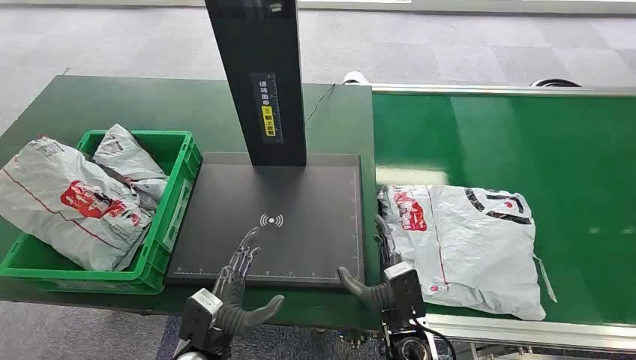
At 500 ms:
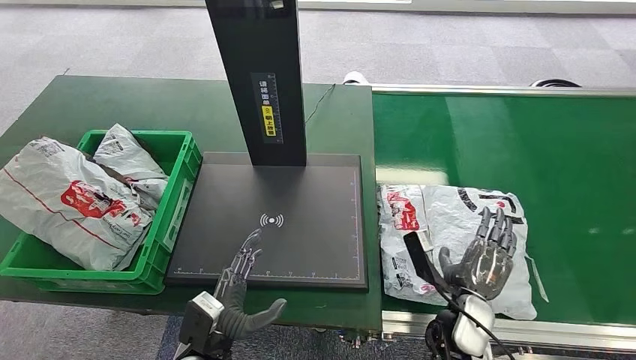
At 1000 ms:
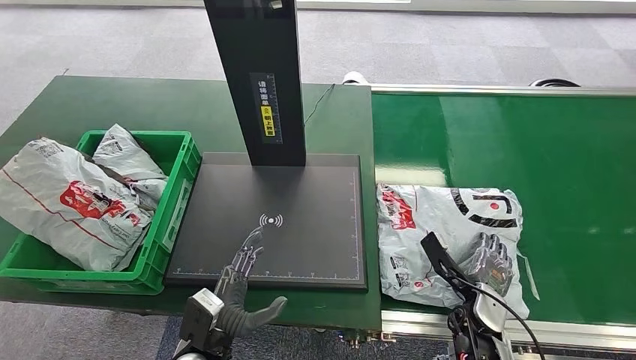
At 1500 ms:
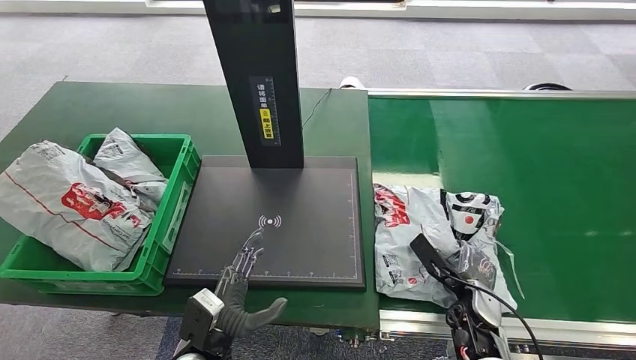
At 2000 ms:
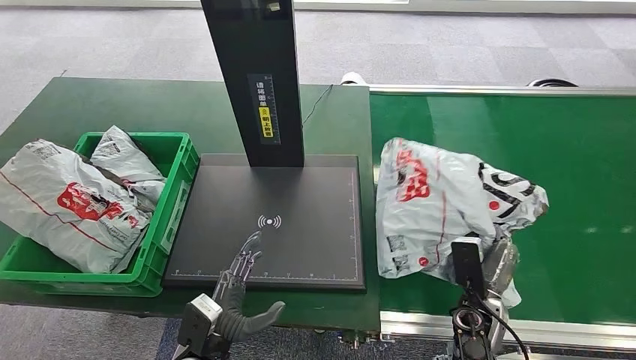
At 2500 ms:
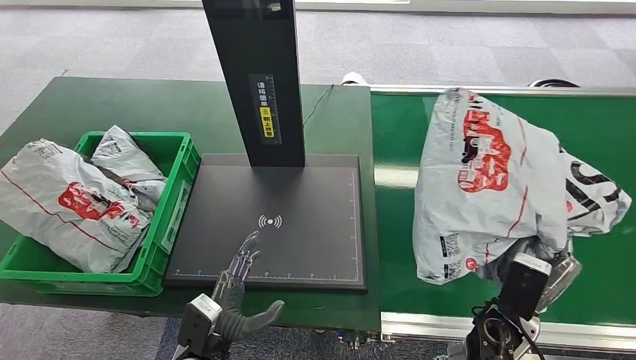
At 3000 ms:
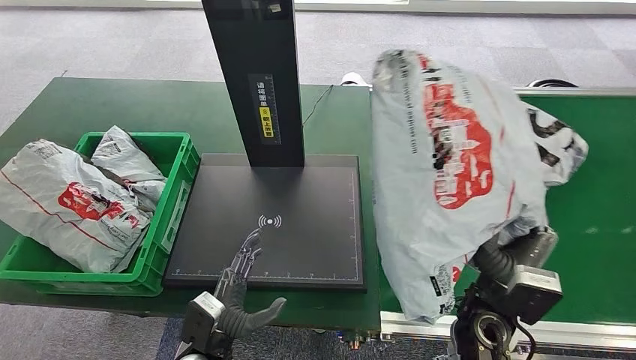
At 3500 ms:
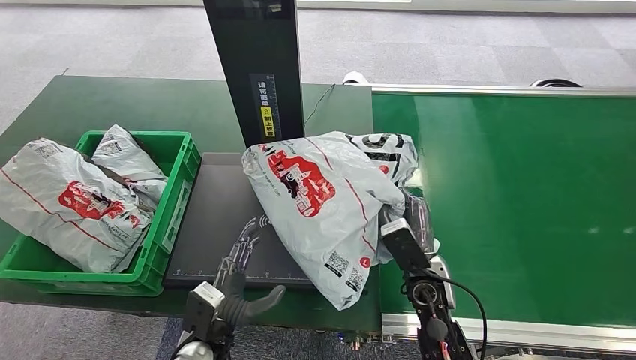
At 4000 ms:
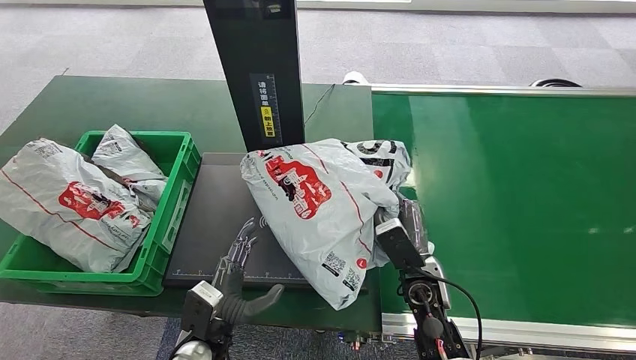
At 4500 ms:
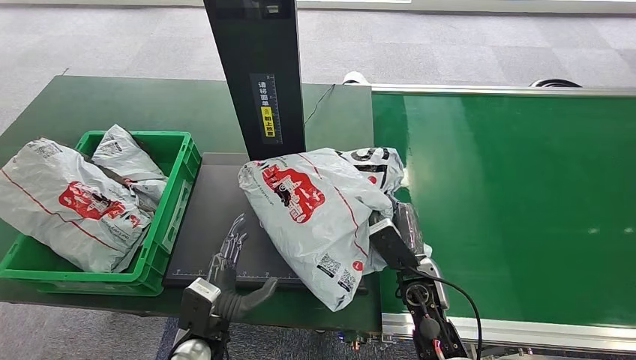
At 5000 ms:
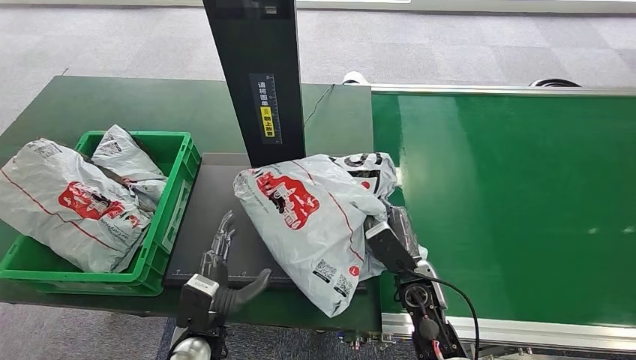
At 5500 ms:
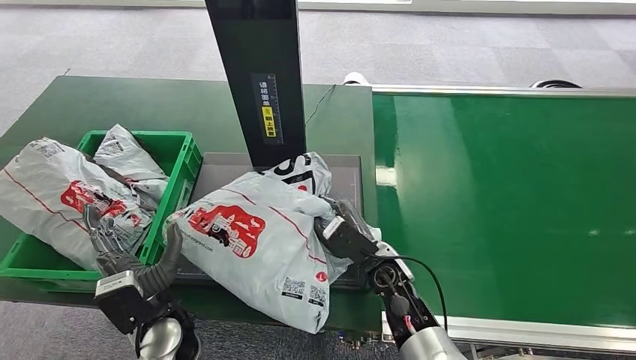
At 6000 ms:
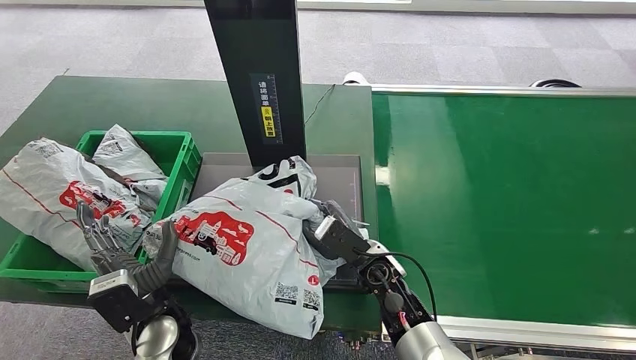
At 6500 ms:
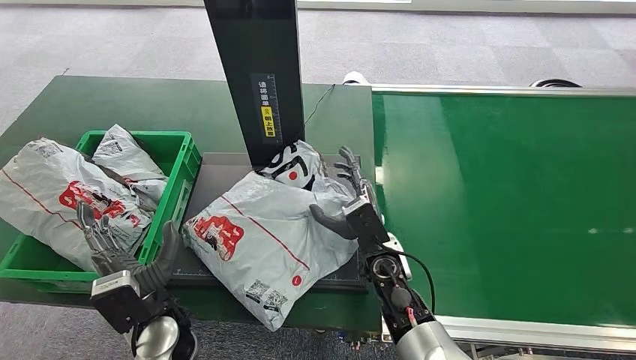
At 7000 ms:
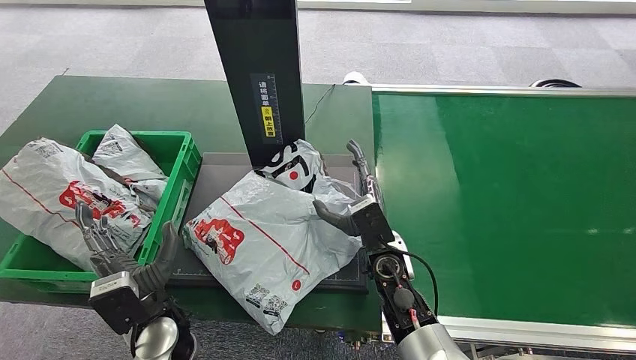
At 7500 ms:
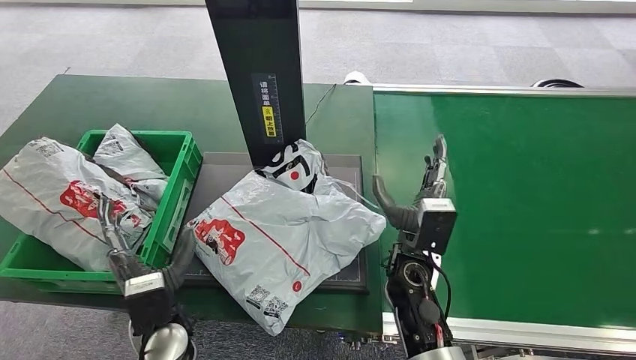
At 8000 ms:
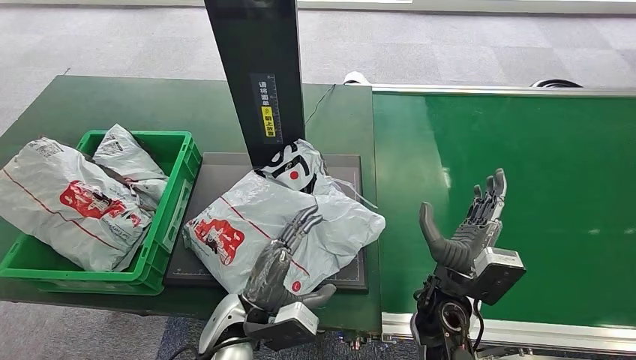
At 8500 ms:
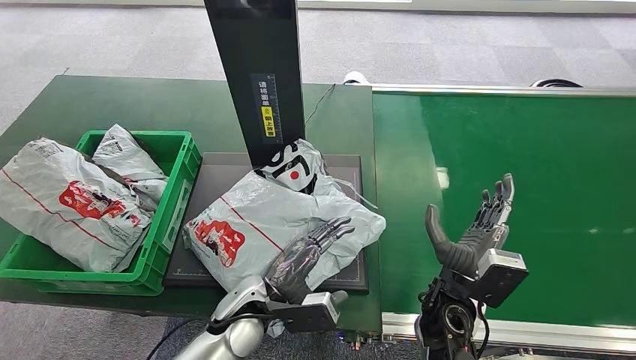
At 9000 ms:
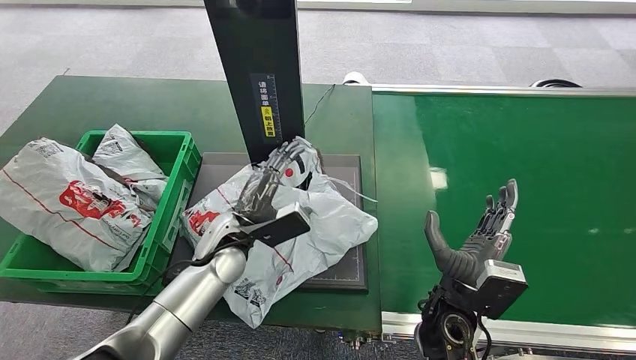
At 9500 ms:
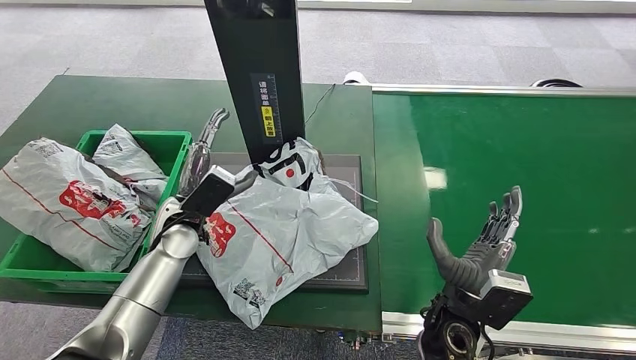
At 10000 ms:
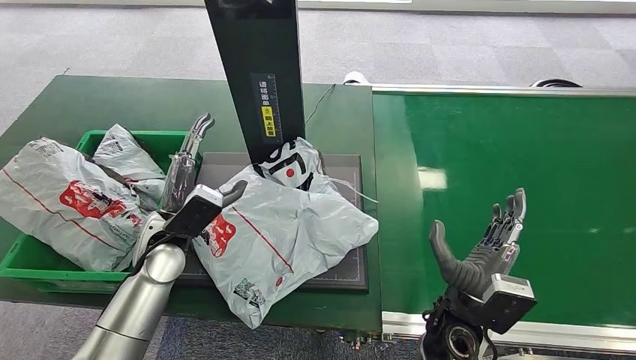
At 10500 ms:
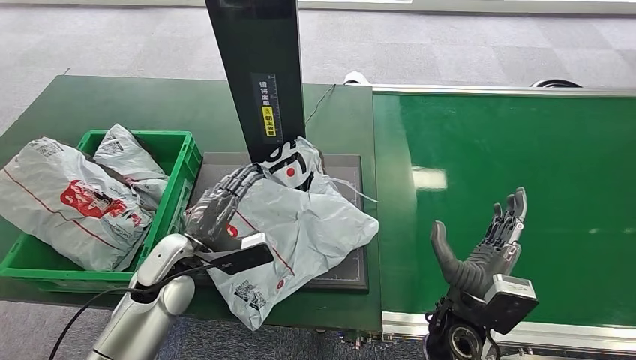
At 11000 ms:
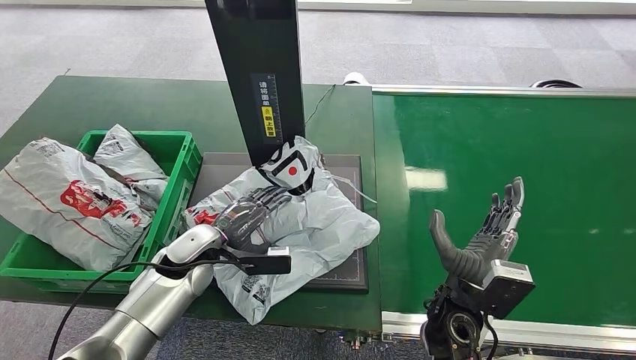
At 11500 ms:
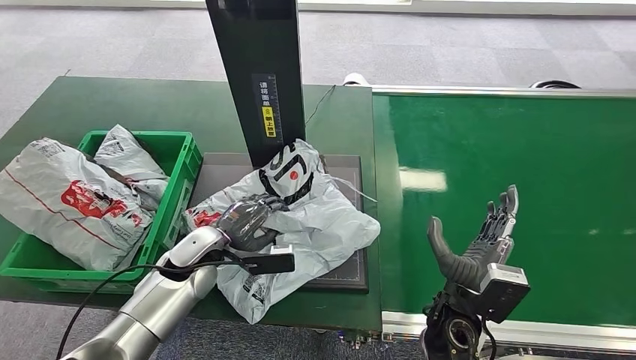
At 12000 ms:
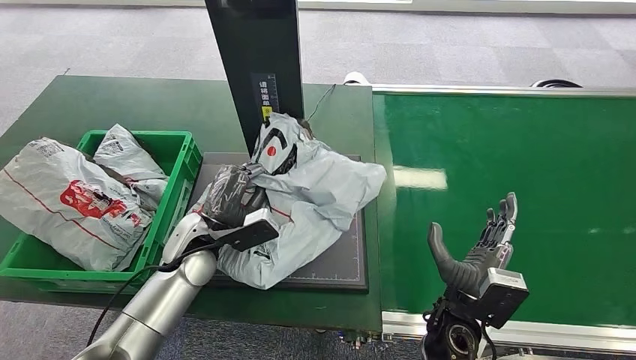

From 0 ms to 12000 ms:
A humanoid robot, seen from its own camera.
Step, from 0 ms to 2500 ms: Pick up the package from the conveyor belt.
Step, from 3000 ms to 8000 ms: Place the package onto the inbound machine.
From 8000 ms to 10000 ms: The left hand moves to the left, forward and upward, about 20 cm.

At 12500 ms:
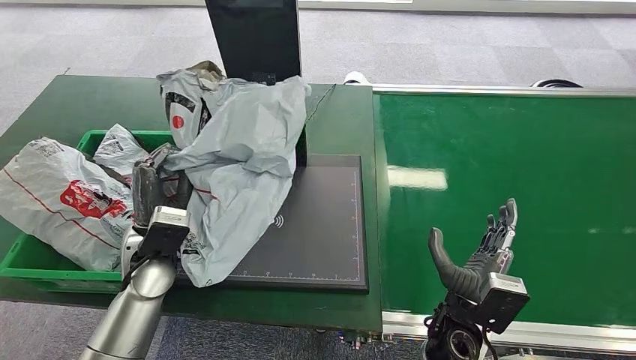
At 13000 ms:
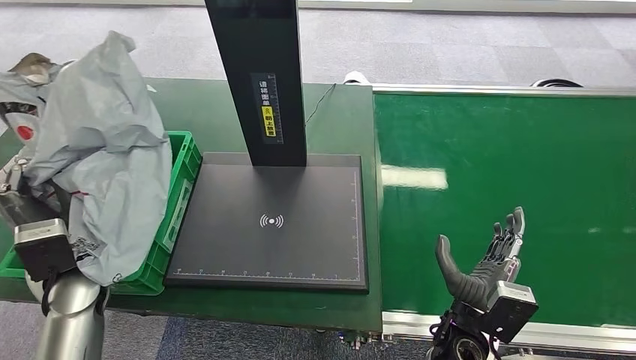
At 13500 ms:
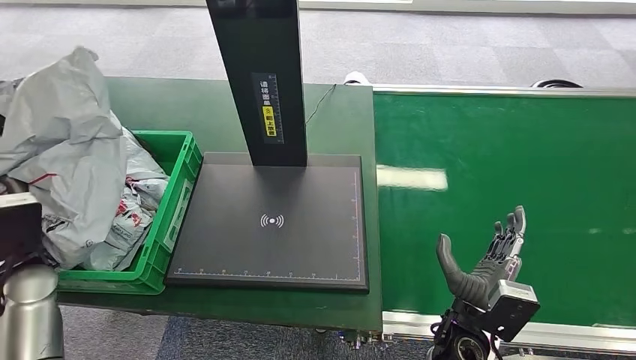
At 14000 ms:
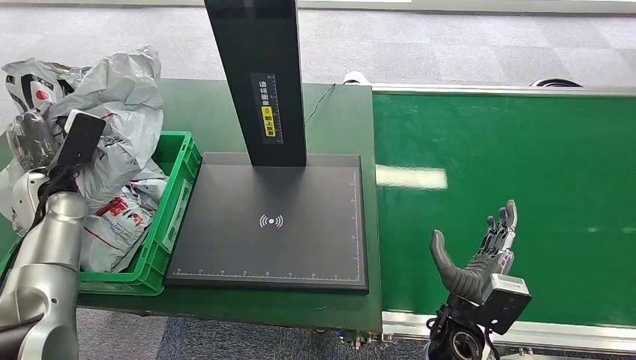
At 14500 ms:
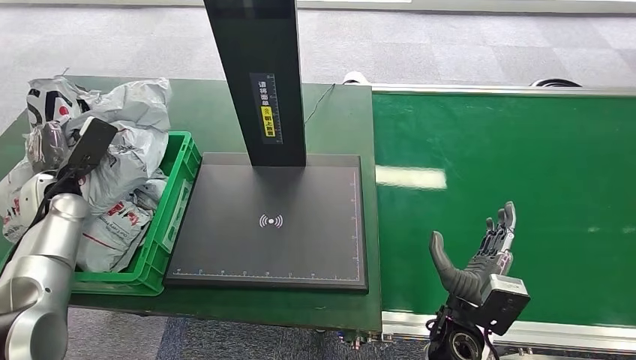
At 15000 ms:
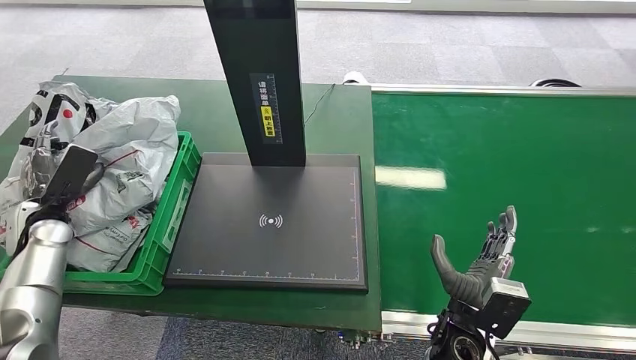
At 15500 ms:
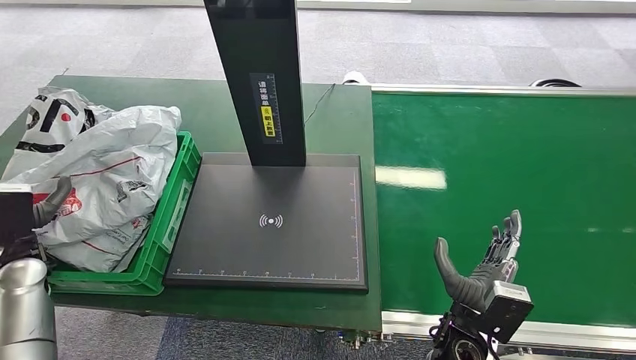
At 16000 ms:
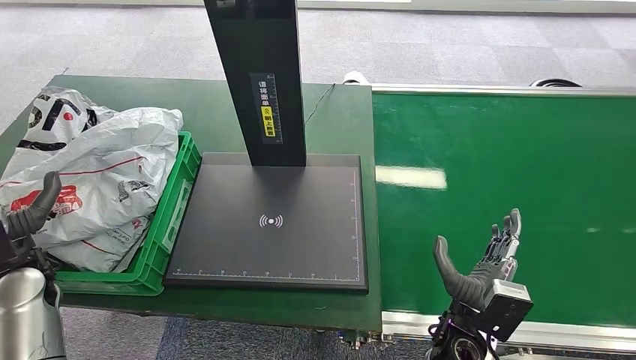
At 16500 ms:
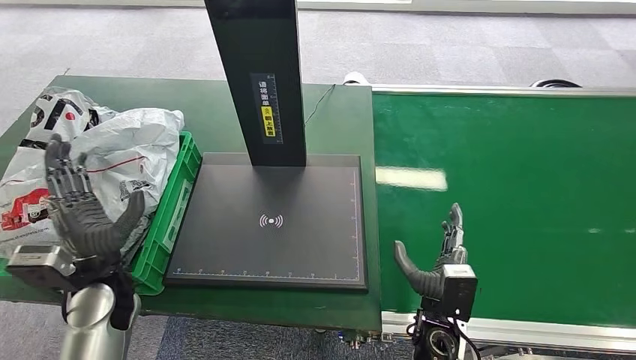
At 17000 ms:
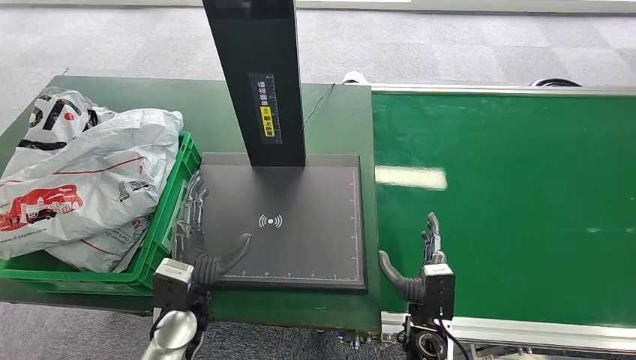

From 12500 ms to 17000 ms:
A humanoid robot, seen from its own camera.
Step, from 13000 ms to 17000 ms: Place the package into the parcel locker.
From 14500 ms to 17000 ms: The left hand is displaced to the right and backward by roughly 30 cm, while the right hand is displaced downward by roughly 5 cm.

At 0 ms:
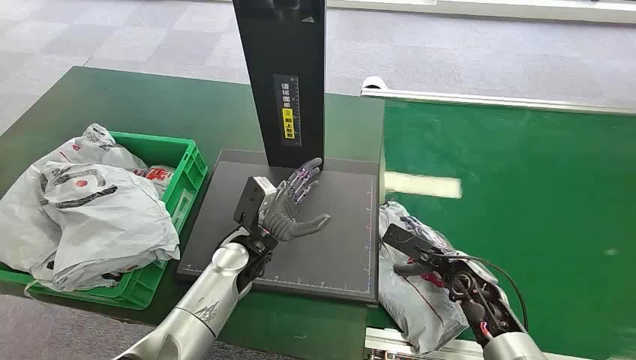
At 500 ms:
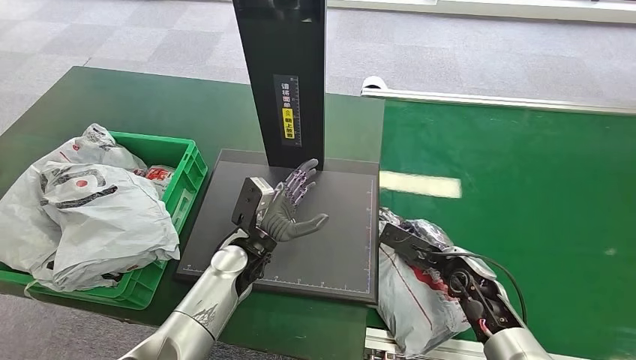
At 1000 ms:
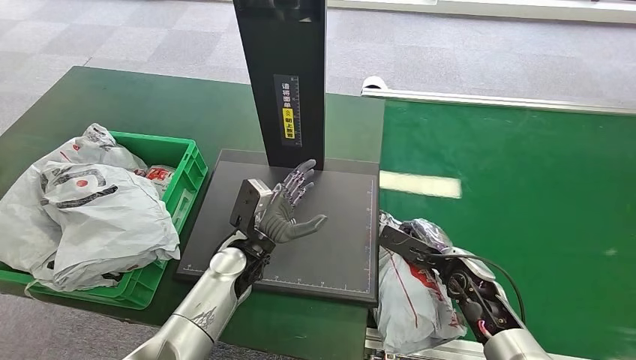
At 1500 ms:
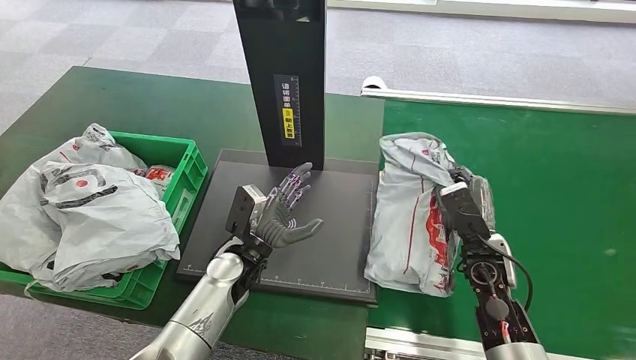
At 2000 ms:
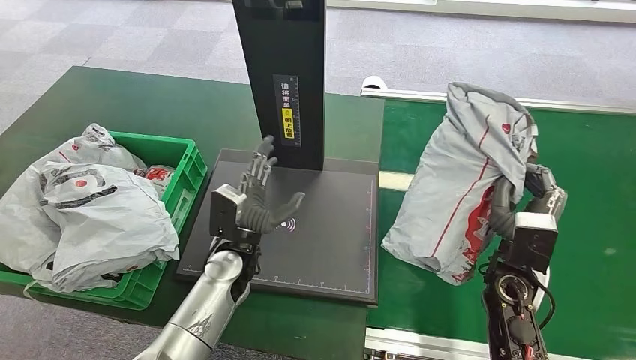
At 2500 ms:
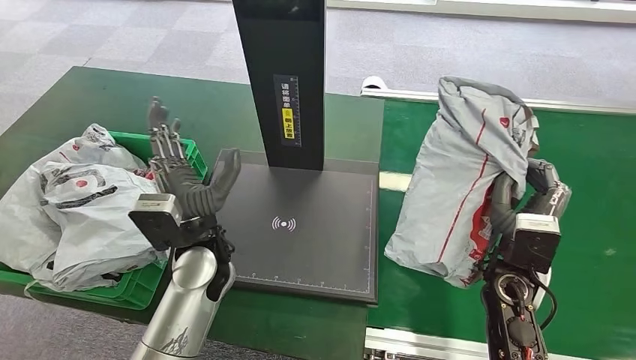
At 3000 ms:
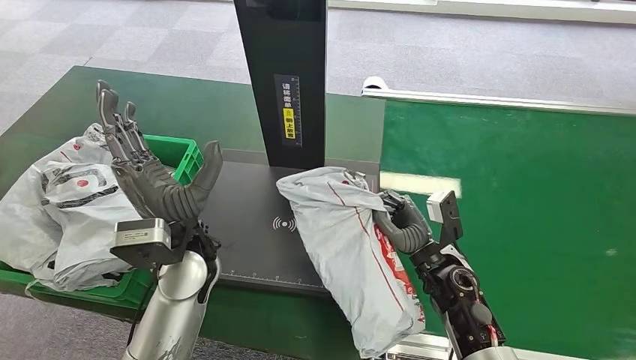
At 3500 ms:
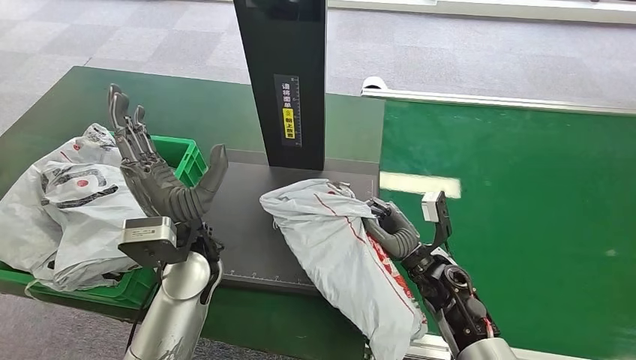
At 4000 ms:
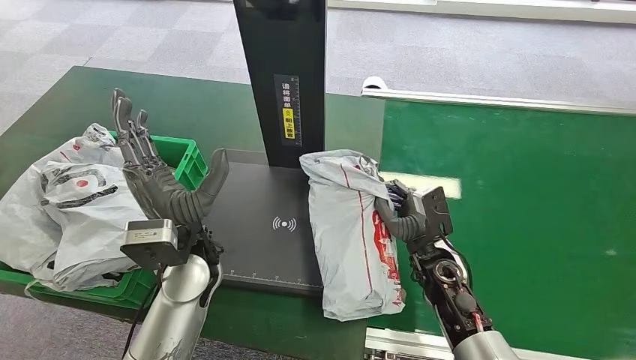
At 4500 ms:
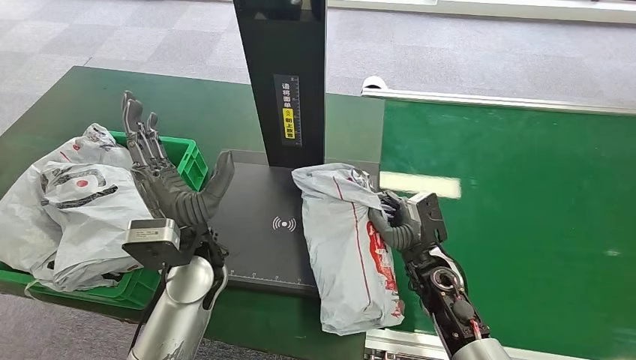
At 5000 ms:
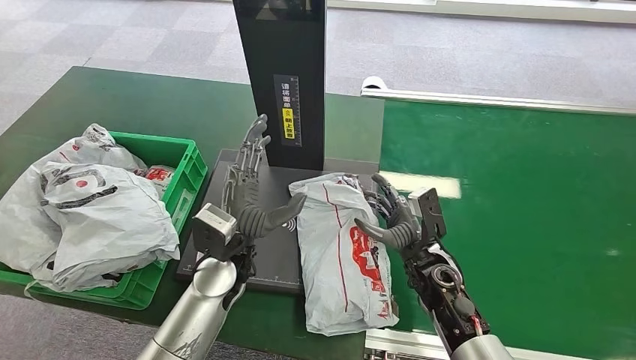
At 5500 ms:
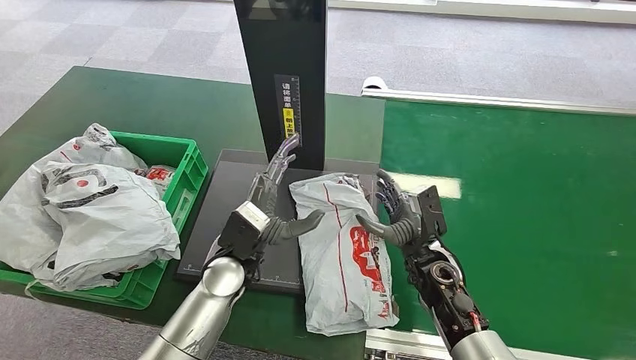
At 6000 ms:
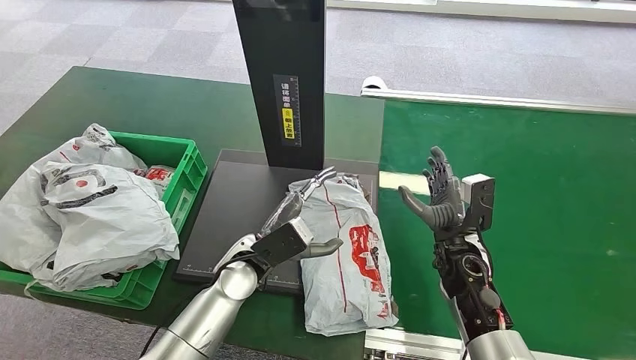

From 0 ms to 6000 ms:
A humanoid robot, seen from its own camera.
Step, from 0 ms to 1500 ms: Pick up the package from the conveyor belt.
Step, from 2000 ms to 5500 ms: Place the package onto the inbound machine.
From 4000 ms to 6000 ms: The left hand is displaced downward by about 10 cm.
